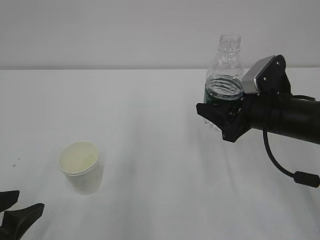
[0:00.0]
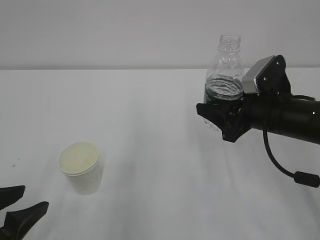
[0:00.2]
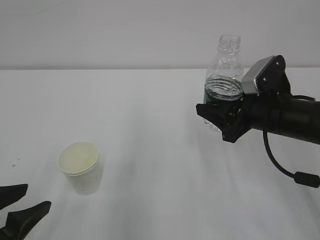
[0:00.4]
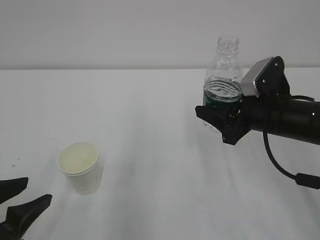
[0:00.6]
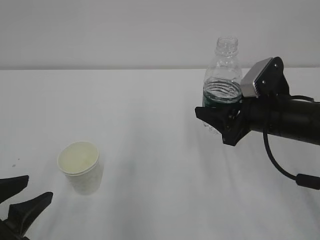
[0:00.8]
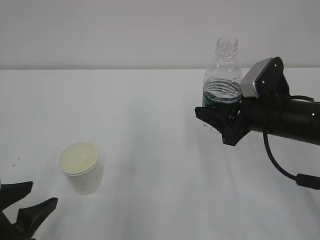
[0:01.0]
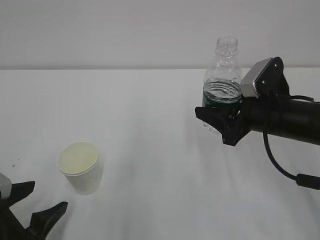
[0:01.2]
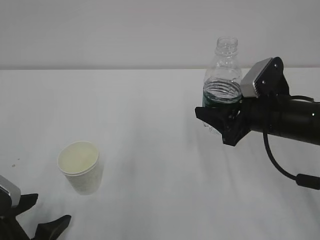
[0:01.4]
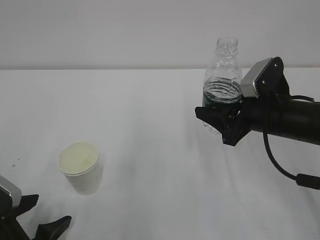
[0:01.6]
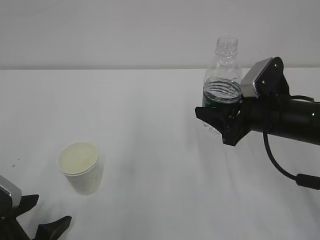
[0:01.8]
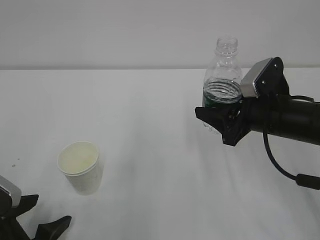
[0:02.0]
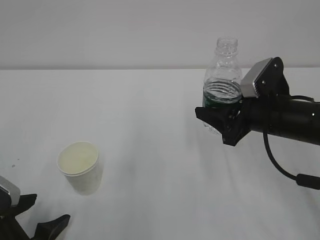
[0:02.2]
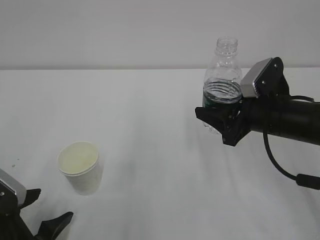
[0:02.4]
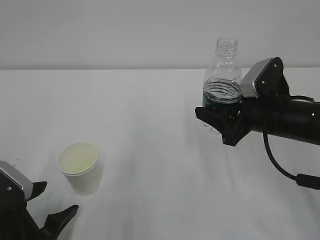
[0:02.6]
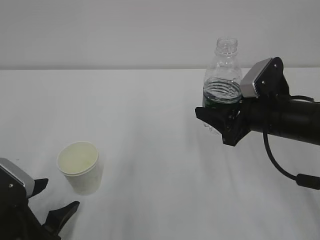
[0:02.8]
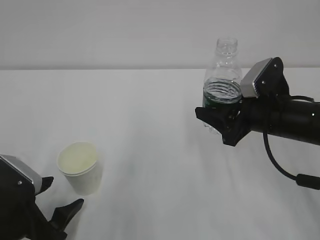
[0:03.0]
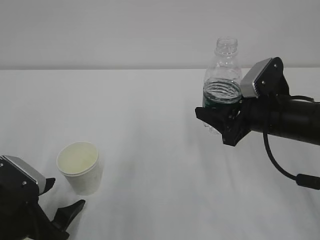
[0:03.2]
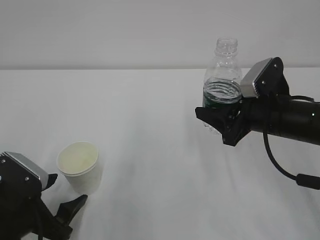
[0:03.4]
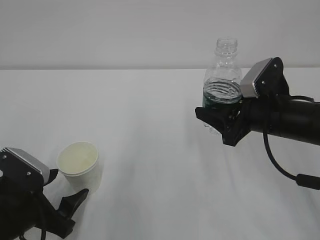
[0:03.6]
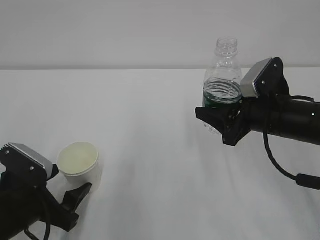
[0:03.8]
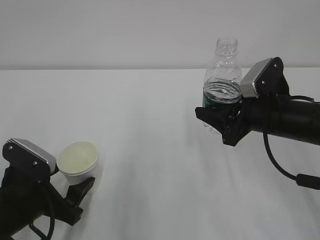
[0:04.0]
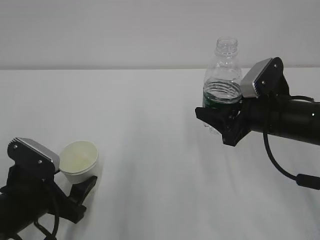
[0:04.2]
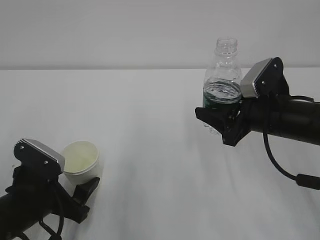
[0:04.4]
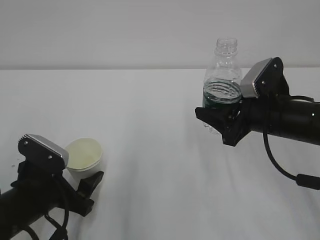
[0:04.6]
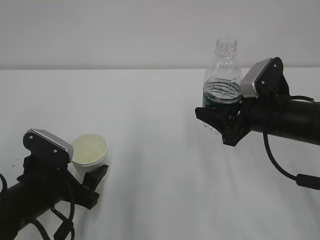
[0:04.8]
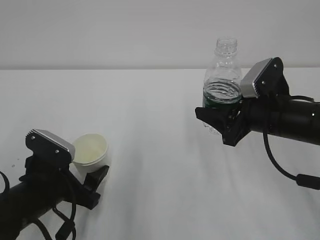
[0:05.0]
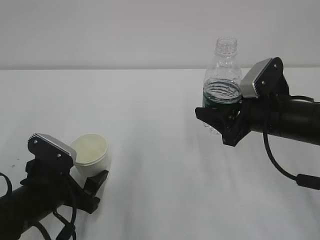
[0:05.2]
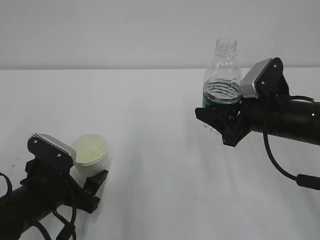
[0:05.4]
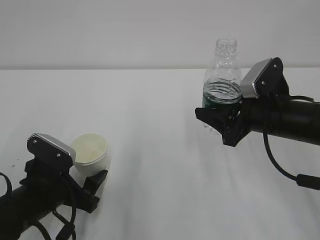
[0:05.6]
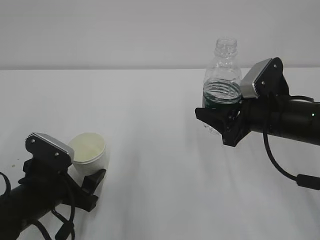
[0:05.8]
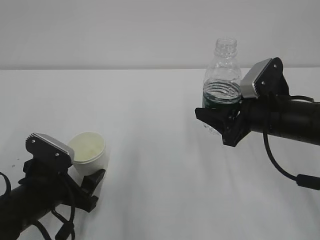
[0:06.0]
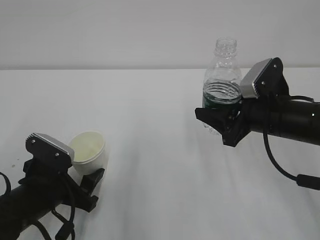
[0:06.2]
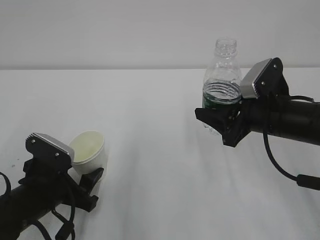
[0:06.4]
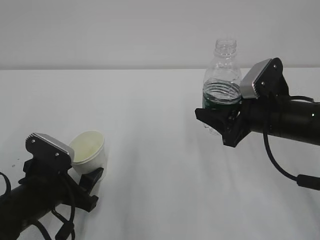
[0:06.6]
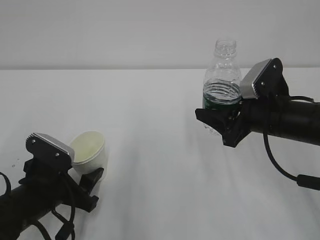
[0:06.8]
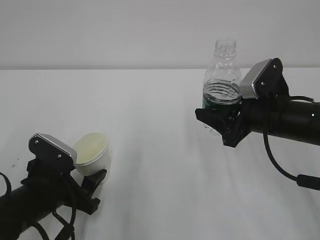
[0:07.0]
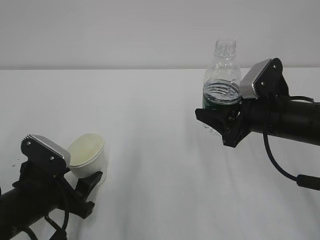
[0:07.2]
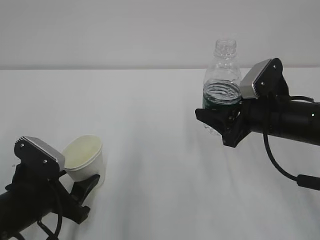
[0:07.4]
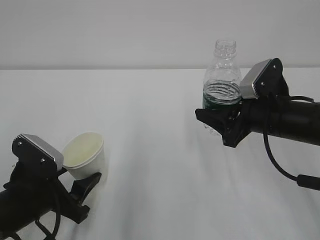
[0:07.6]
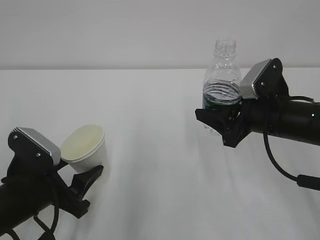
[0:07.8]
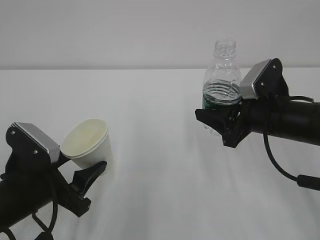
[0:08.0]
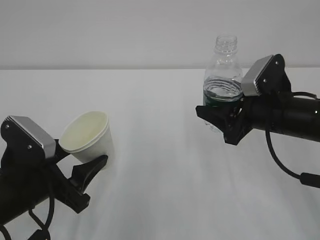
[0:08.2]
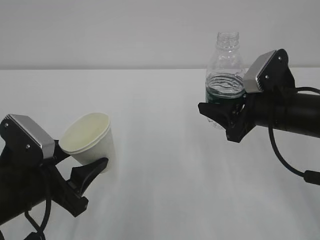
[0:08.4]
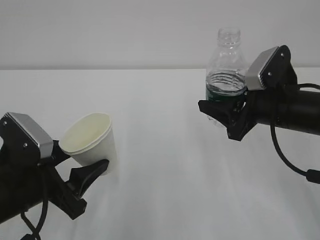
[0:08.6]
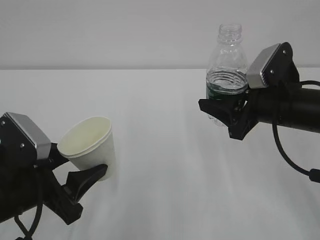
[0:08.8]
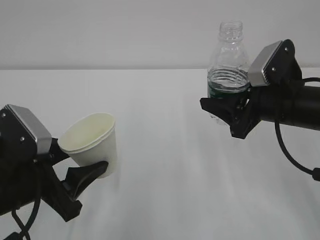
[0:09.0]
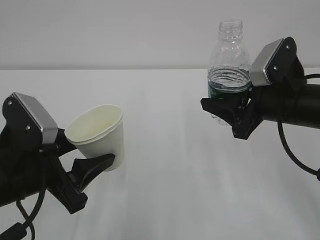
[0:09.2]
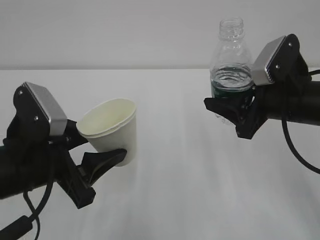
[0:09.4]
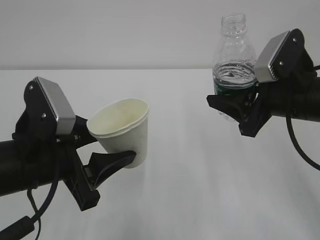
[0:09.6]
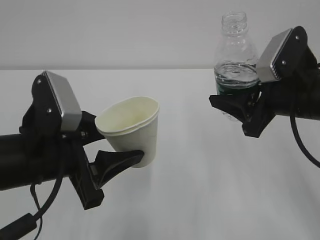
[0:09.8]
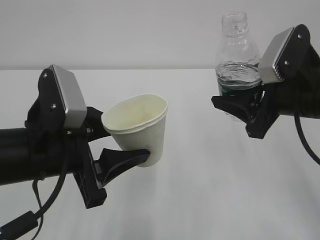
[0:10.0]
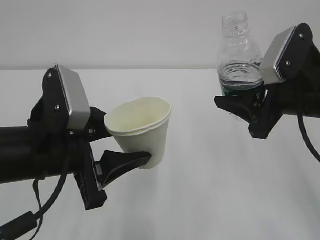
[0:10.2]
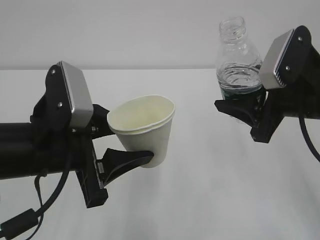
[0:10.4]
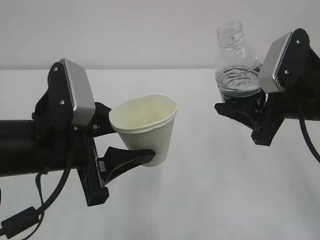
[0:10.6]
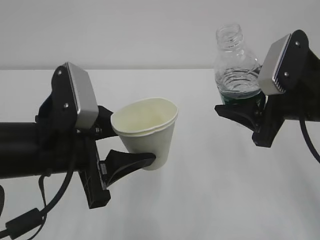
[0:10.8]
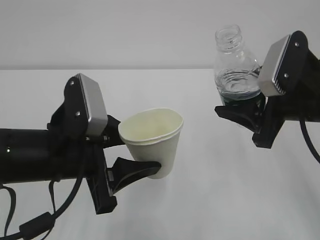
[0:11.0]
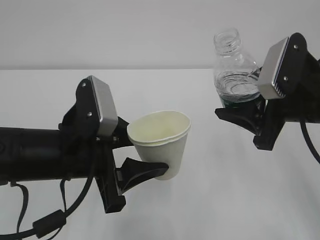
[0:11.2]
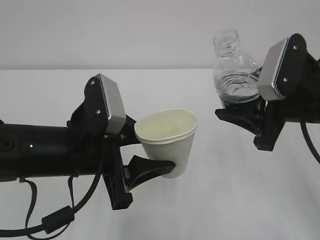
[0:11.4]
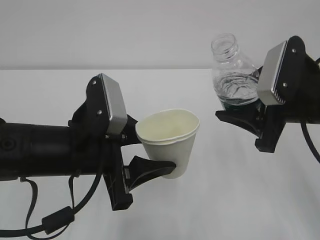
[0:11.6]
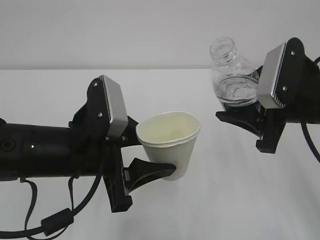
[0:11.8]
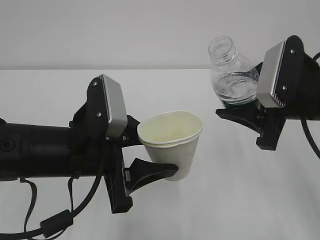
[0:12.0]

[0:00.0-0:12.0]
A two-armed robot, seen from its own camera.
0:00.0 to 0:01.6: The left gripper opens its fingers.
0:01.6 to 0:03.0: There are only small adjustments of the grippers.
0:03.0 to 0:04.4: The grippers stay close to where they were, moving slightly.
0:04.4 to 0:06.0: There are only small adjustments of the grippers.
0:06.0 to 0:07.6: The left gripper closes.
0:07.6 to 0:09.0: The left gripper heads upward, covering some 5 cm.
0:09.0 to 0:10.4: The left gripper travels upward and to the right by some 5 cm.

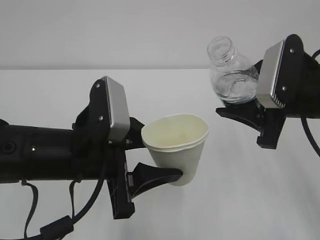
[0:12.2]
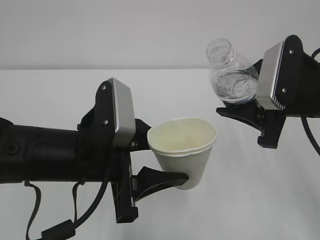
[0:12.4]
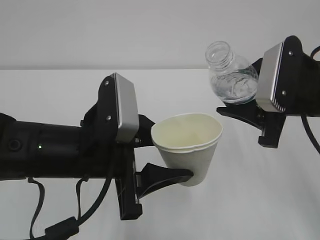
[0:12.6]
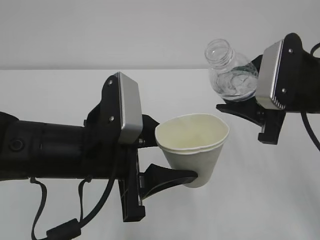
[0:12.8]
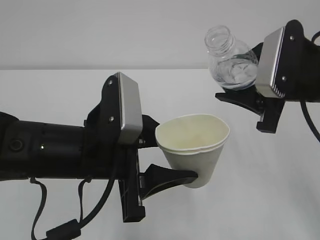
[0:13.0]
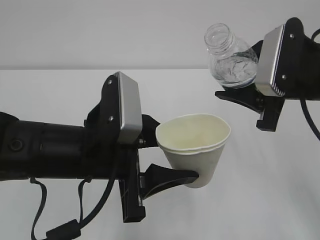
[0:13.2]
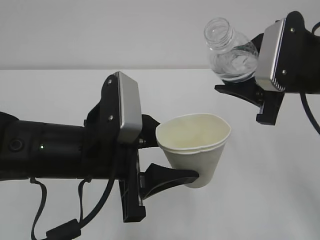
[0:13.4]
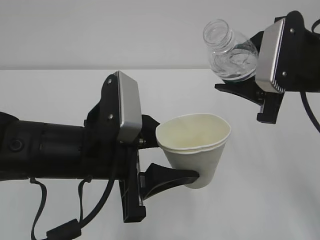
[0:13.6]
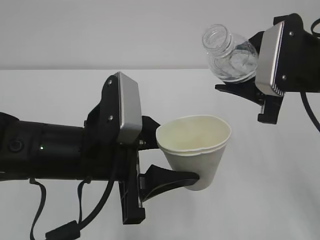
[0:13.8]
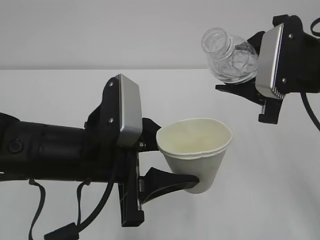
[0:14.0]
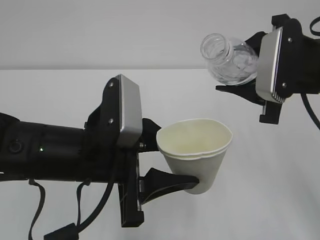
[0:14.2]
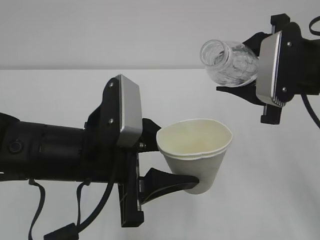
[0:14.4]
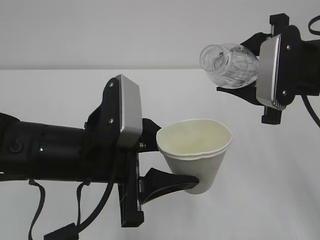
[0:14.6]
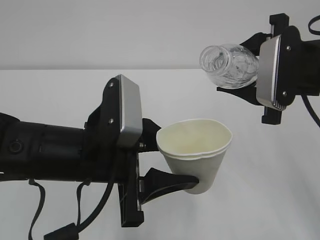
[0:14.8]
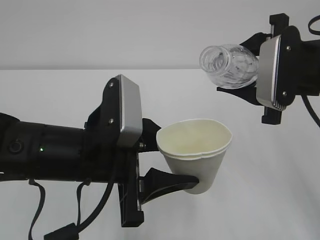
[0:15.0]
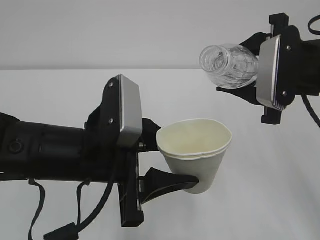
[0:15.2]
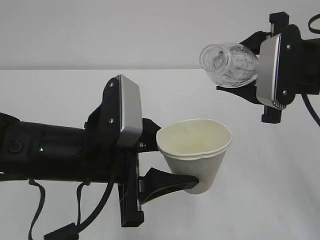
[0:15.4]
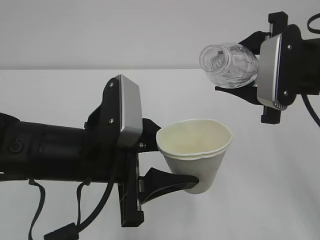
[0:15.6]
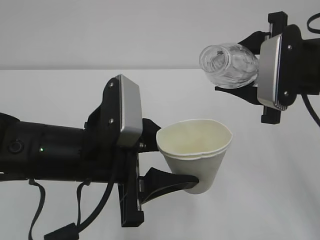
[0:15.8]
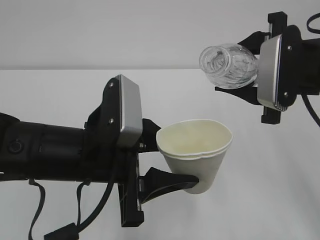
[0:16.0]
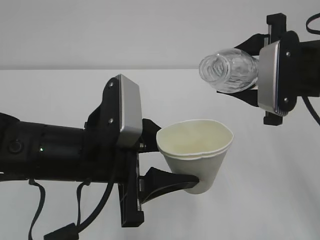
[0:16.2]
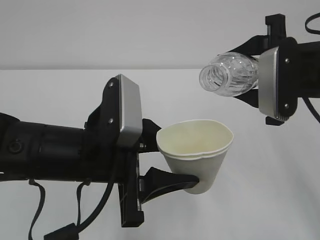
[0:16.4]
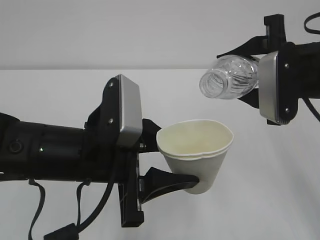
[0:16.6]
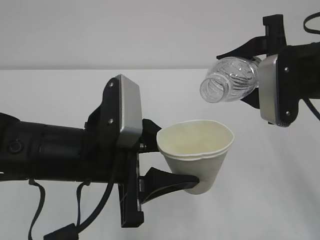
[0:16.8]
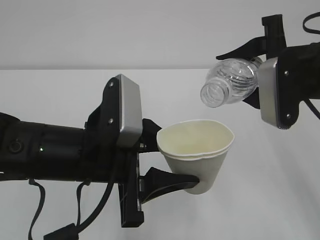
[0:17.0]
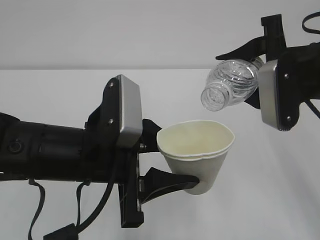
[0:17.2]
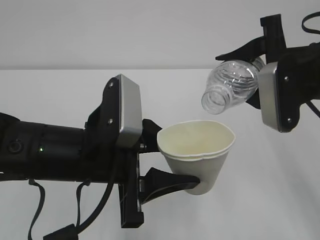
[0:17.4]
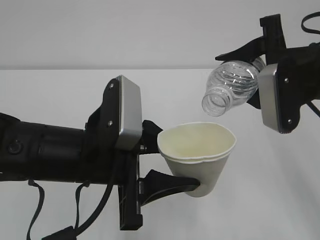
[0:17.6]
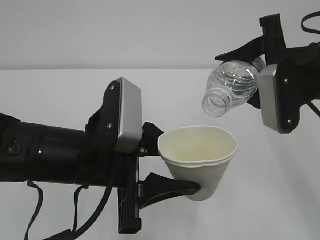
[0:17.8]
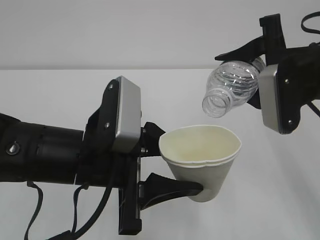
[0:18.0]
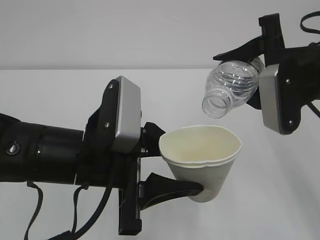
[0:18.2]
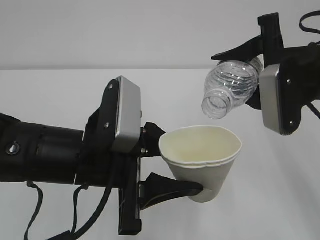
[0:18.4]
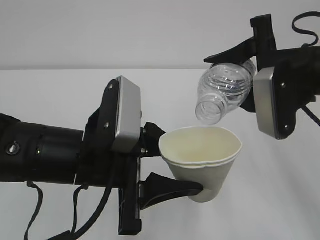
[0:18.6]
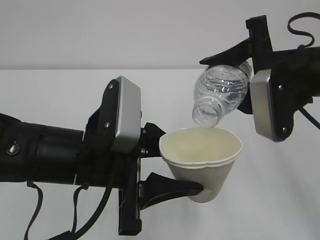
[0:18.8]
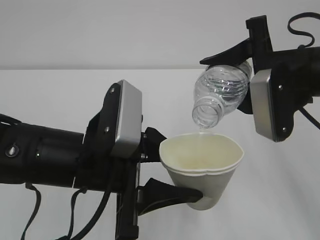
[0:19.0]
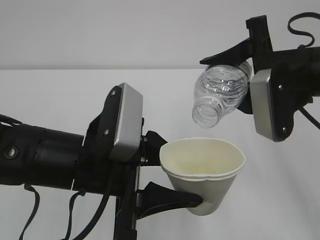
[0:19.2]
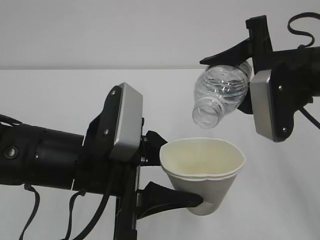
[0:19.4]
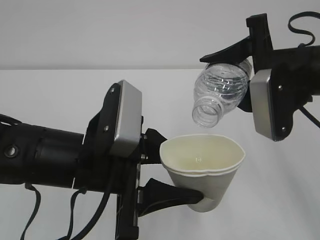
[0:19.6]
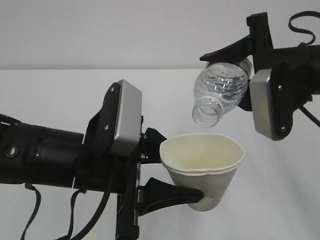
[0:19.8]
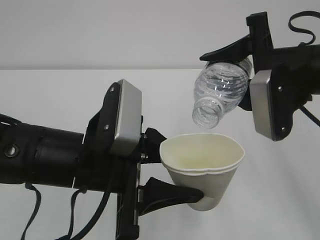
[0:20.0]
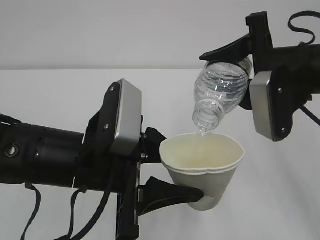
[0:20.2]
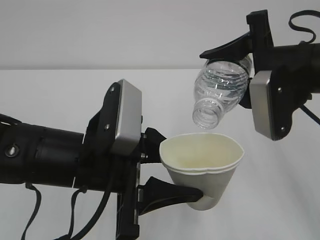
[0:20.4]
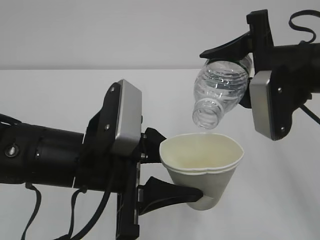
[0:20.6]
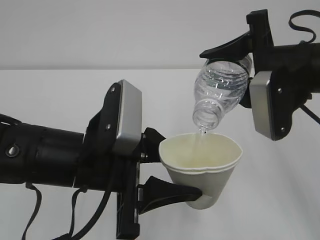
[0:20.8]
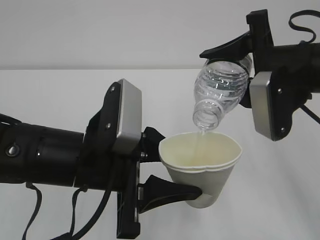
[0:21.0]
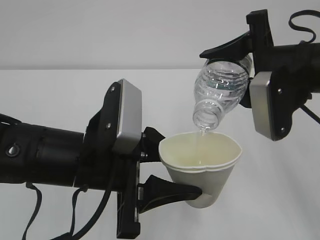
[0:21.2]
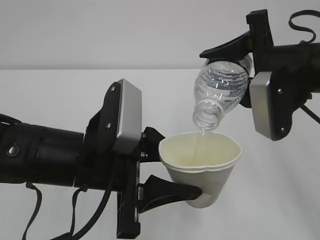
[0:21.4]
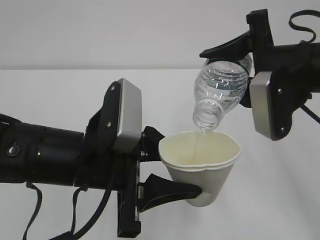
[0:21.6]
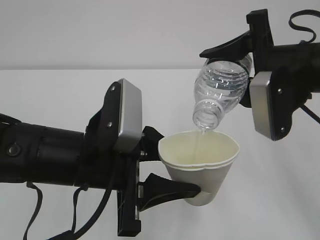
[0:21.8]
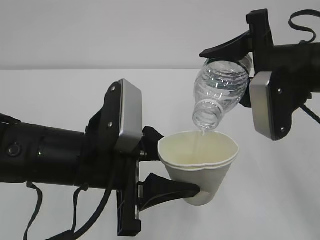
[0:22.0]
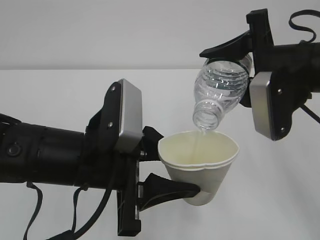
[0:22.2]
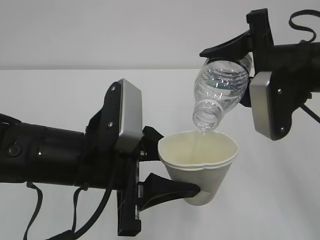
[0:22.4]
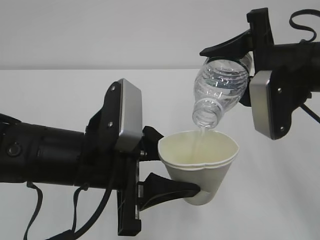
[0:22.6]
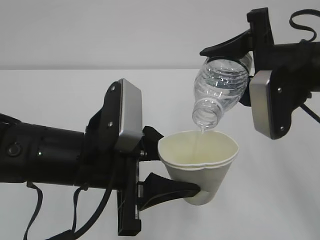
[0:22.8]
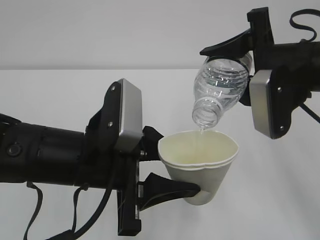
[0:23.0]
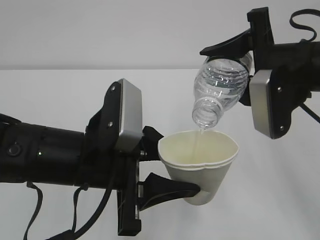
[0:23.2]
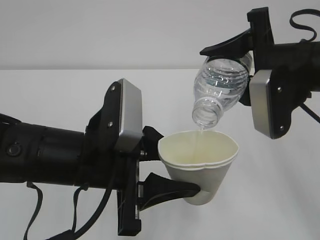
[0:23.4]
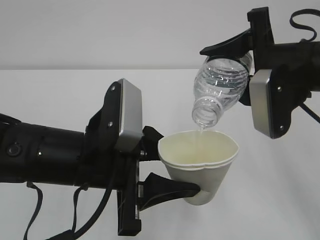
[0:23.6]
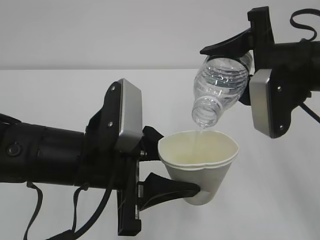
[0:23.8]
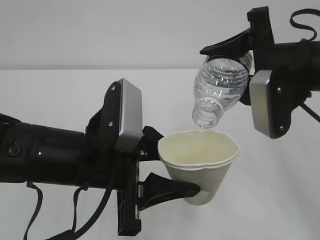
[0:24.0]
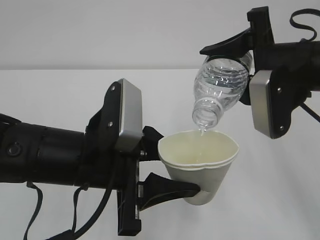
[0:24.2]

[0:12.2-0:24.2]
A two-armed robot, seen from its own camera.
0:13.8 to 0:15.2: The grippers make only small movements.
0:15.2 to 0:16.6: The grippers move only a little.
0:16.6 to 0:19.8: There are only small adjustments of the grippers.
0:19.8 to 0:21.2: The two grippers keep their place.
0:21.2 to 0:24.2: The two grippers keep their place.
